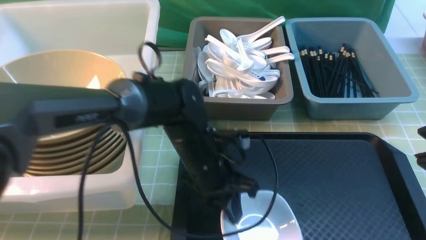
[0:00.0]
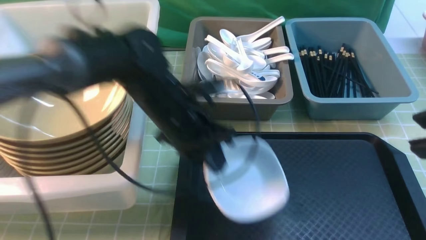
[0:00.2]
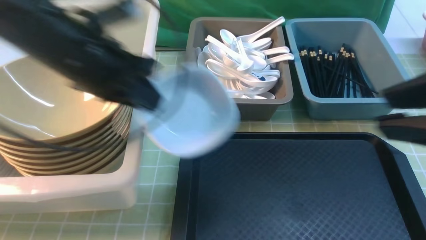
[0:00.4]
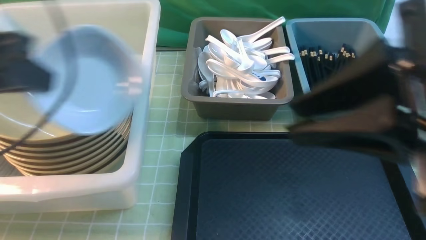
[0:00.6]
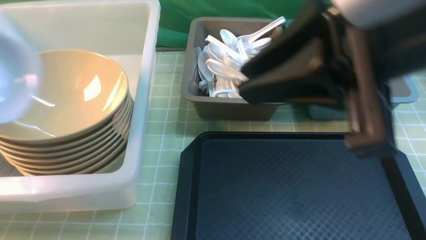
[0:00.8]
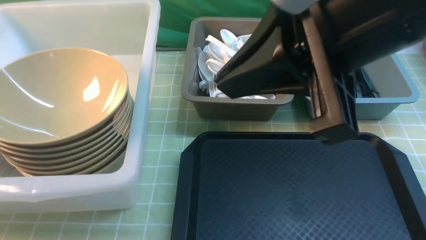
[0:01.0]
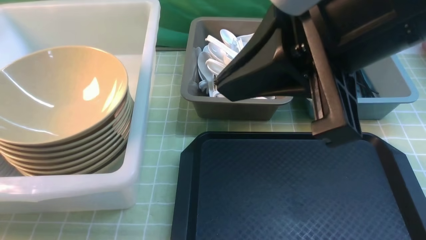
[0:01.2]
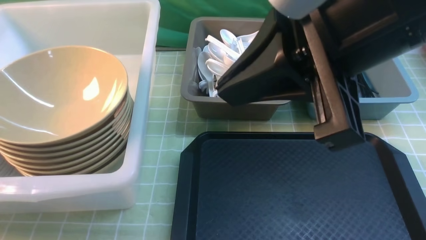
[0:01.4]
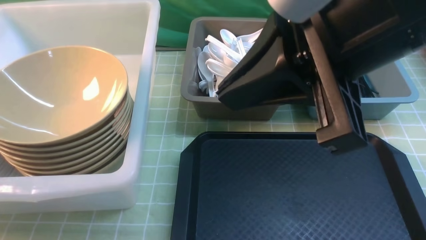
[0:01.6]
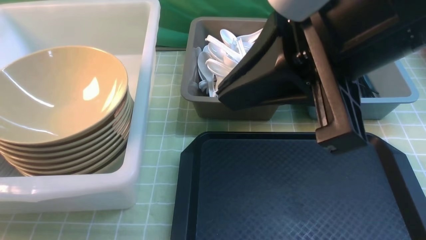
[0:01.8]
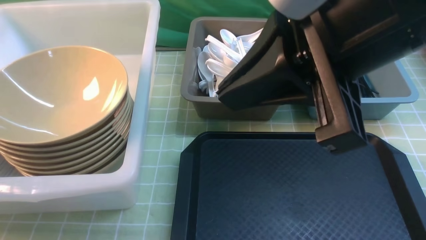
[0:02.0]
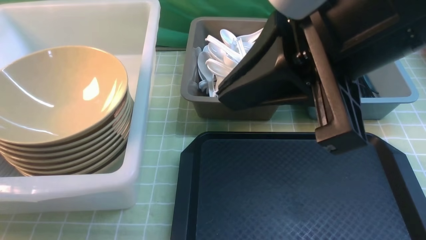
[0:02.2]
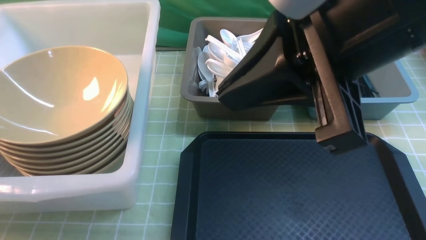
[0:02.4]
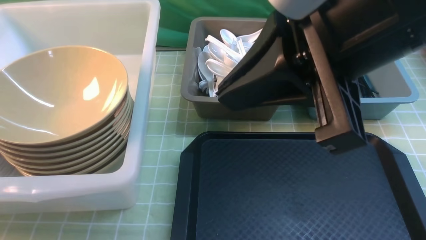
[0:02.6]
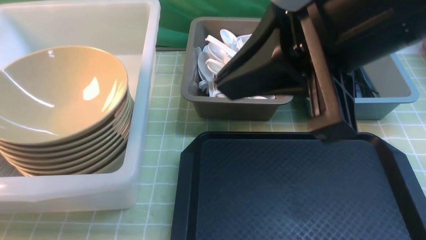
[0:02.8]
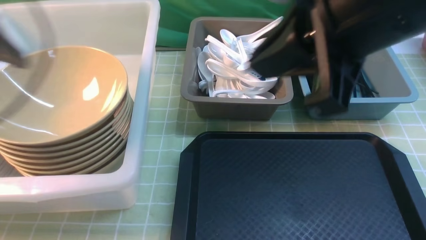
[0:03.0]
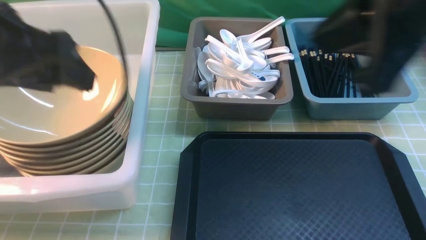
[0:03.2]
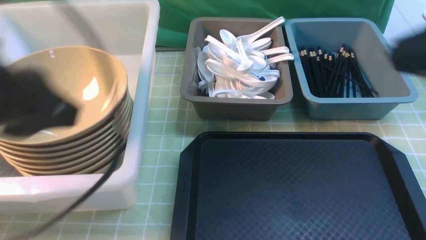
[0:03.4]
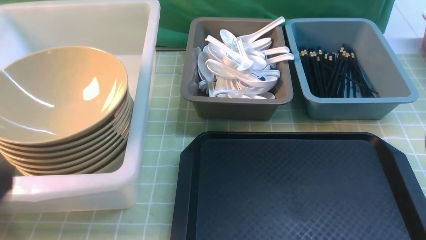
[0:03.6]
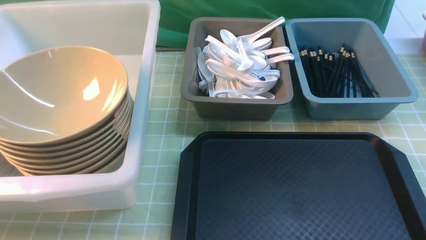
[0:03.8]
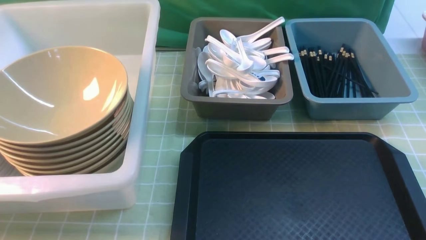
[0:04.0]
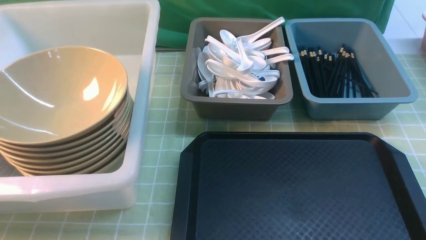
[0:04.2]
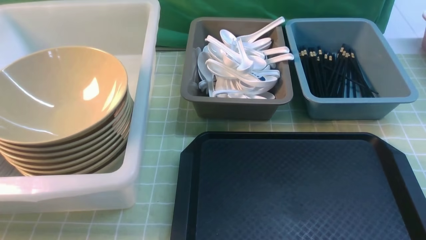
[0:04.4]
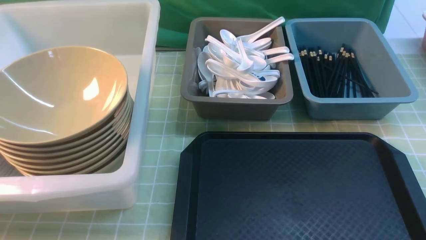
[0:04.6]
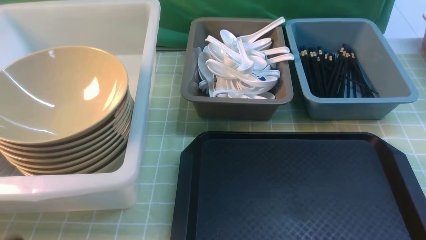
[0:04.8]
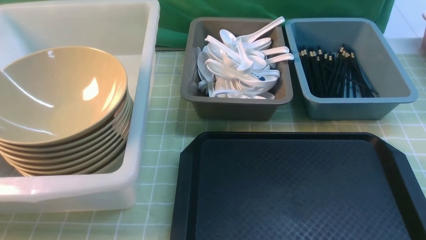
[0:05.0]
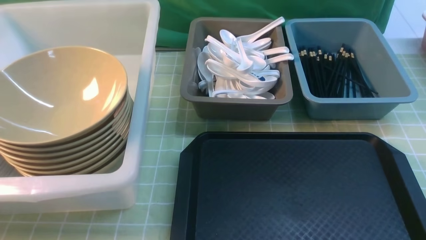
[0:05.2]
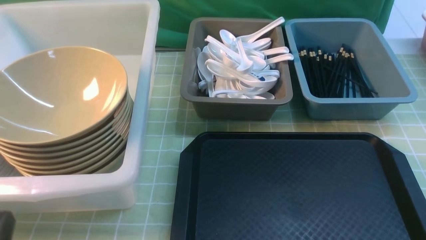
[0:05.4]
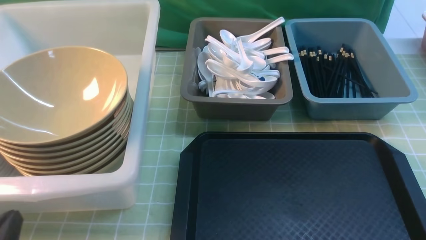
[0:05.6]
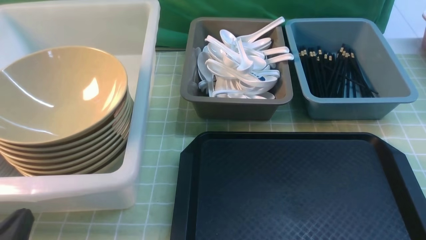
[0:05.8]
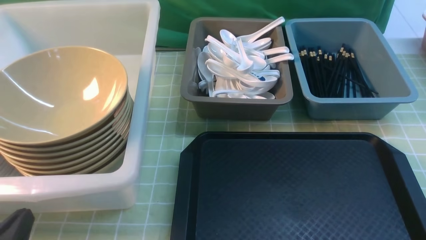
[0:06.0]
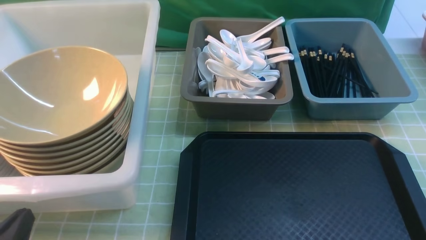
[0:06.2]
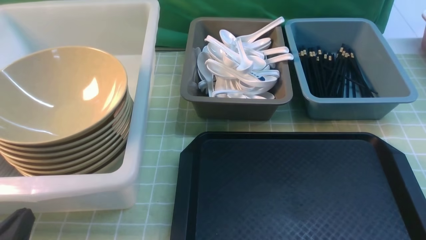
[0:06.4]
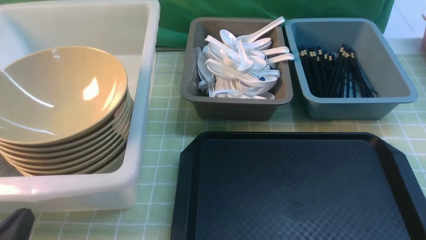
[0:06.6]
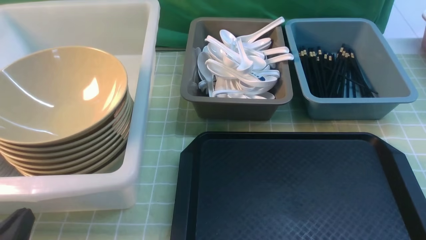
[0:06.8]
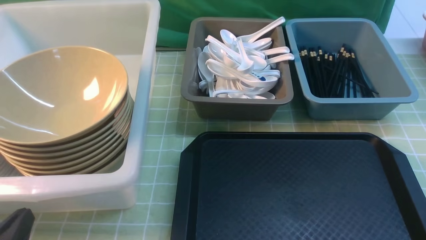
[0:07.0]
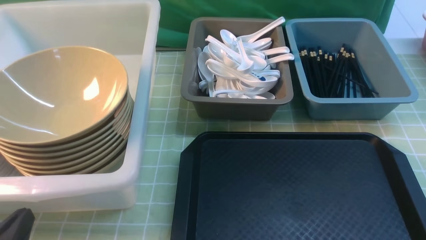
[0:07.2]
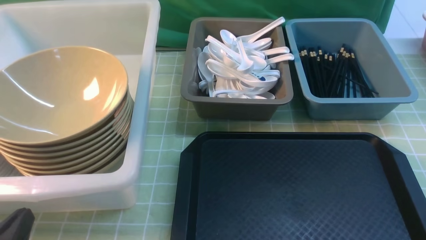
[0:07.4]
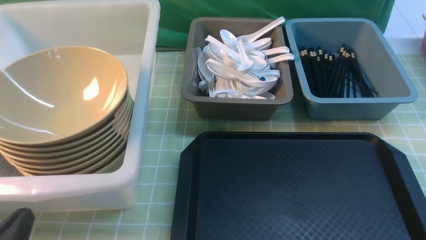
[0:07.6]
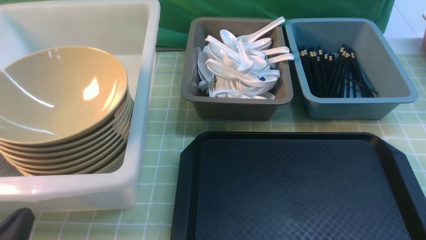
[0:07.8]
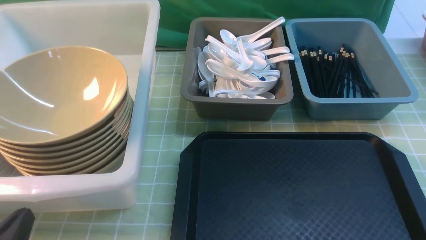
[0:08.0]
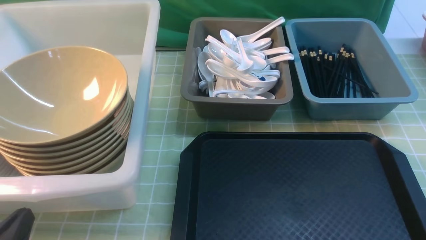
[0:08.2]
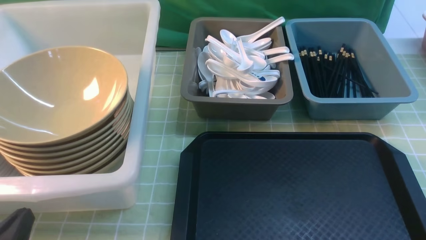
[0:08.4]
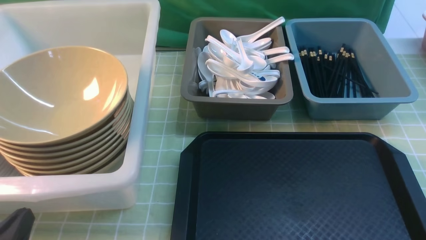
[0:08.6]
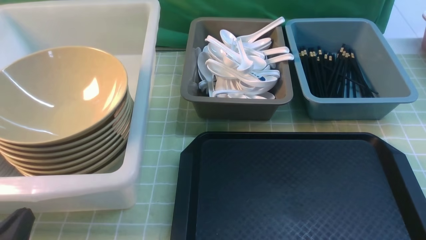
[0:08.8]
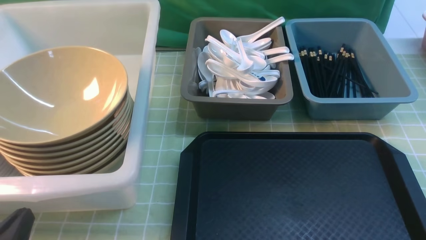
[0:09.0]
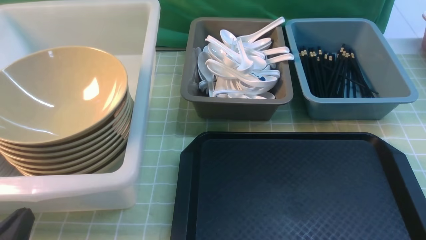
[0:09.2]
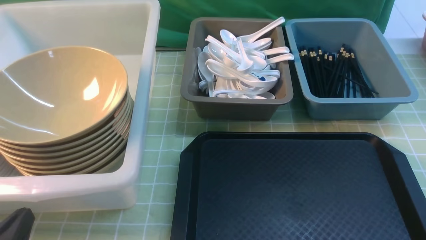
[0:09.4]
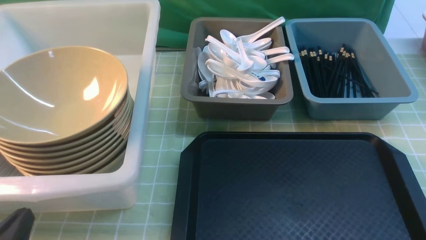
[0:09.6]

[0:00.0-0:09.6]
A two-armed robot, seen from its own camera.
Task of the whole recording: on green table put chopsticks spoon bowls plates into blue grey white boxes.
Step, 0:00.4 to 0:02.2: use the left arm to put the plate into the large storage box on the left.
0:00.0 to 0:01.6: The right gripper shifts some 15 cm to the left and forward, and closes up. Meanwhile the left gripper is displaced to the left by approximately 35 cm.
0:01.6 to 0:03.2: The left gripper moves to the right and upward, roughly 20 cm, and opens, while the right gripper heads to the right, covering approximately 5 cm.
0:03.2 to 0:04.8: The left gripper goes roughly 25 cm backward and downward, and closes up; the right gripper heads downward, backward and to the right, covering approximately 25 cm.
0:04.8 to 0:06.4: The left gripper heads downward, covering some 10 cm.
0:08.0 to 0:09.6: Both grippers stay put.

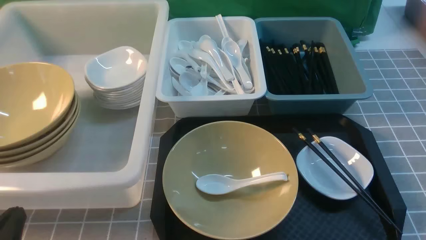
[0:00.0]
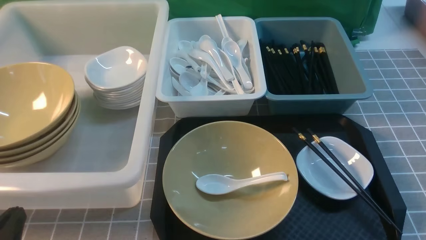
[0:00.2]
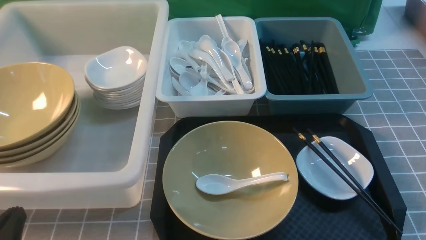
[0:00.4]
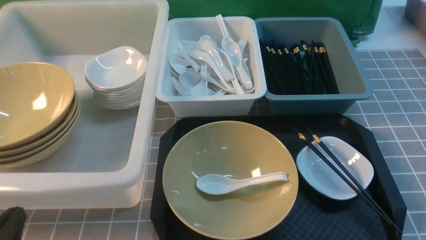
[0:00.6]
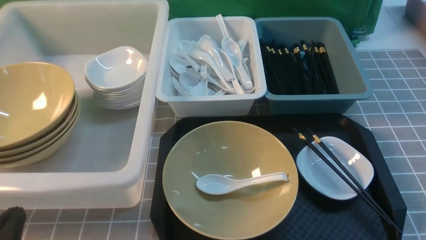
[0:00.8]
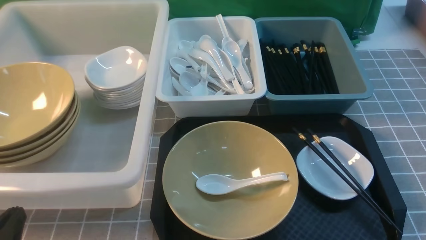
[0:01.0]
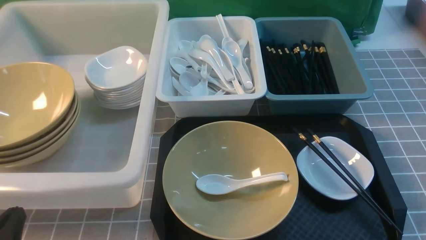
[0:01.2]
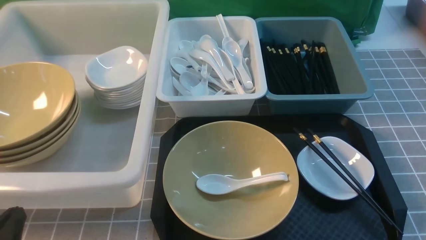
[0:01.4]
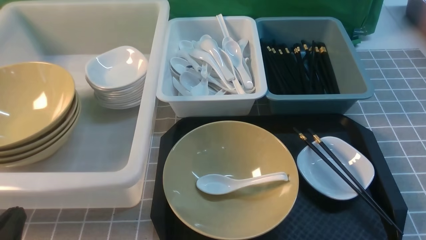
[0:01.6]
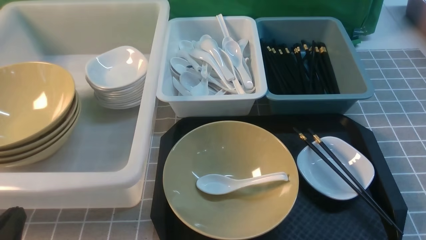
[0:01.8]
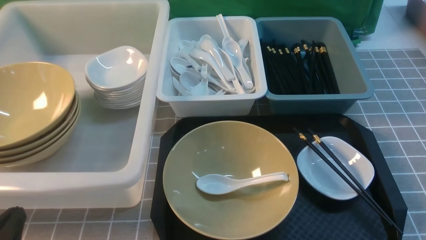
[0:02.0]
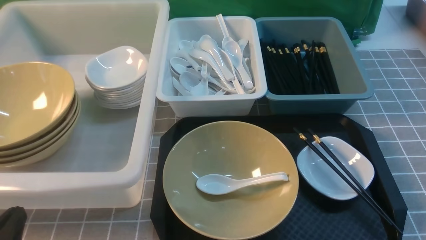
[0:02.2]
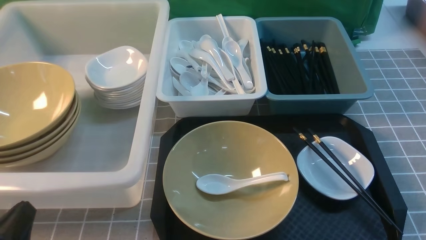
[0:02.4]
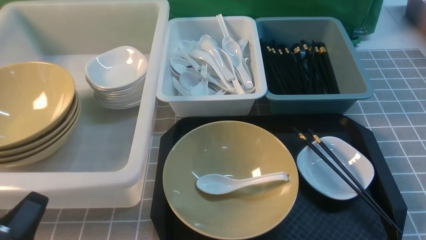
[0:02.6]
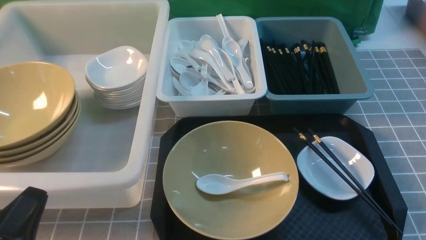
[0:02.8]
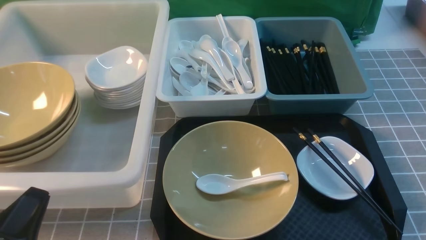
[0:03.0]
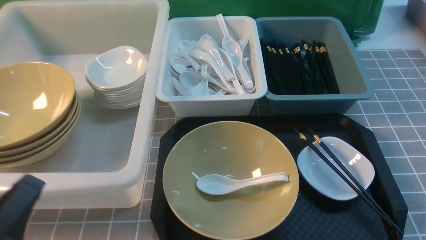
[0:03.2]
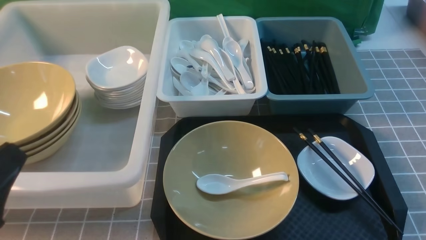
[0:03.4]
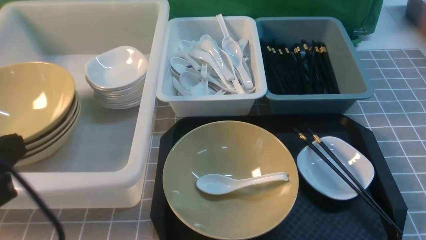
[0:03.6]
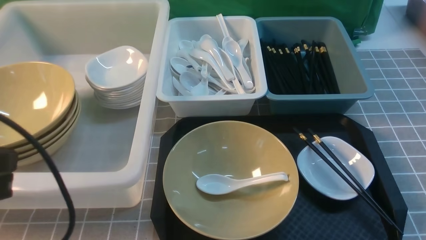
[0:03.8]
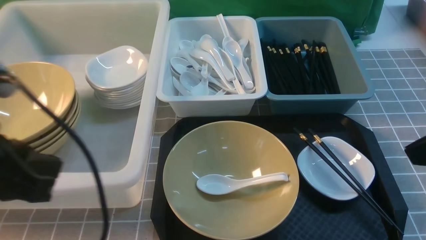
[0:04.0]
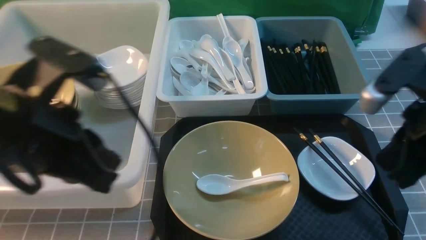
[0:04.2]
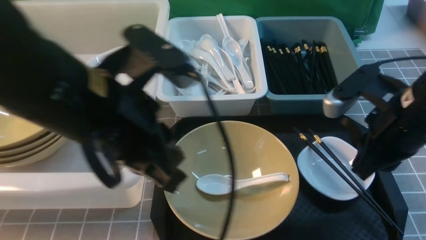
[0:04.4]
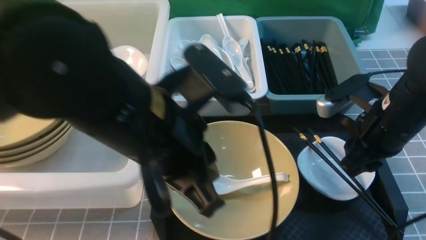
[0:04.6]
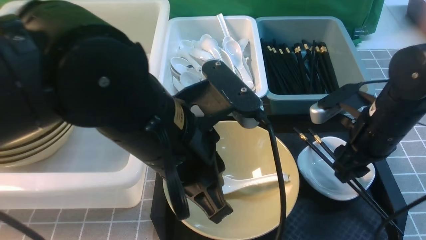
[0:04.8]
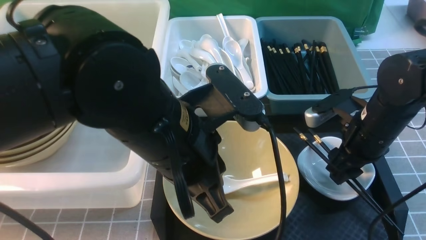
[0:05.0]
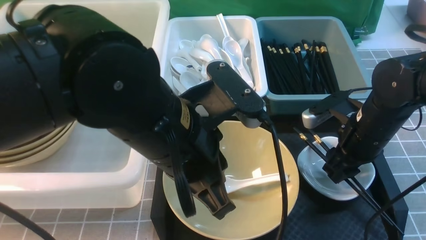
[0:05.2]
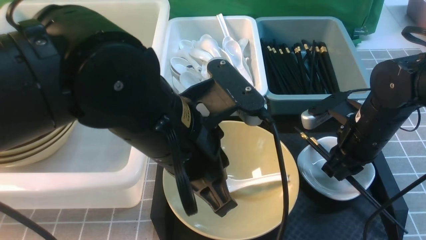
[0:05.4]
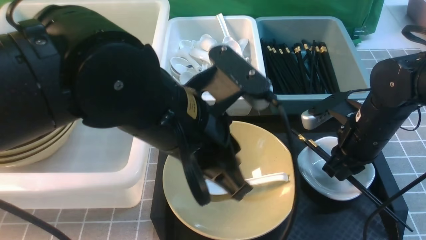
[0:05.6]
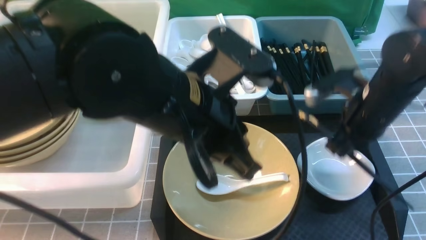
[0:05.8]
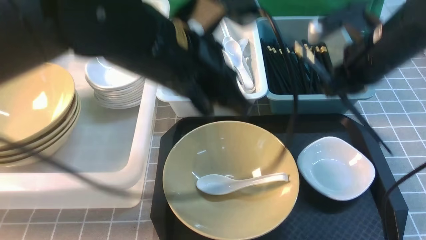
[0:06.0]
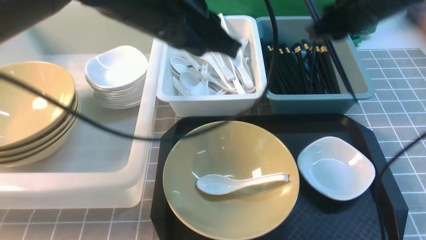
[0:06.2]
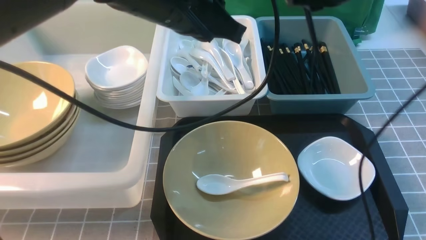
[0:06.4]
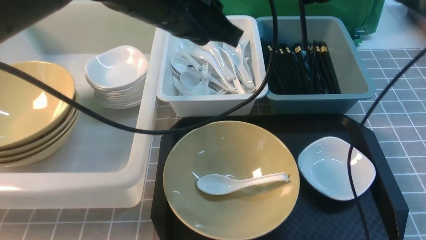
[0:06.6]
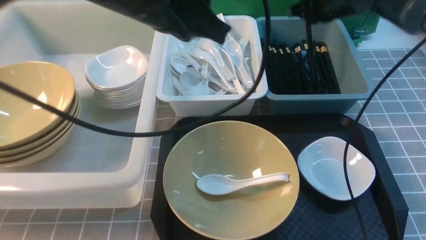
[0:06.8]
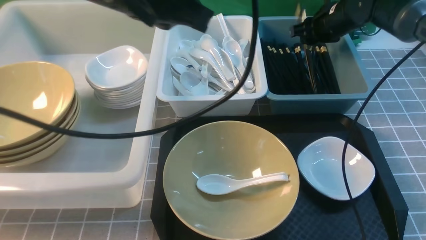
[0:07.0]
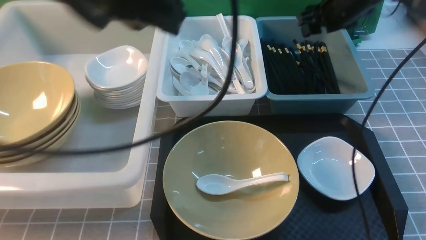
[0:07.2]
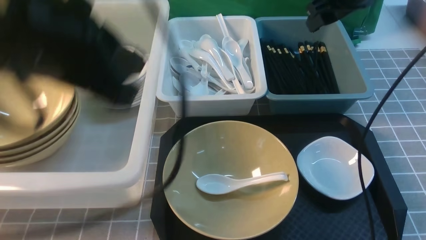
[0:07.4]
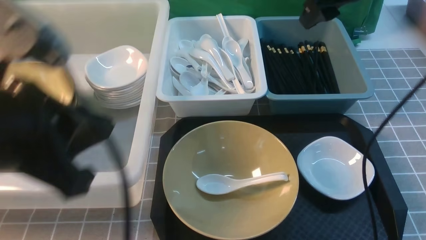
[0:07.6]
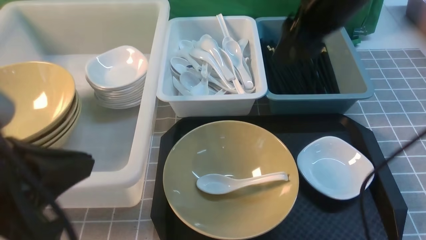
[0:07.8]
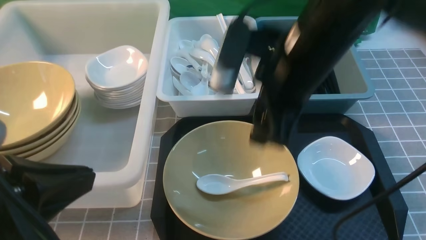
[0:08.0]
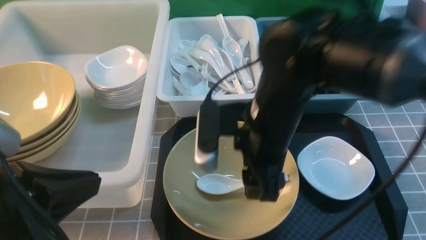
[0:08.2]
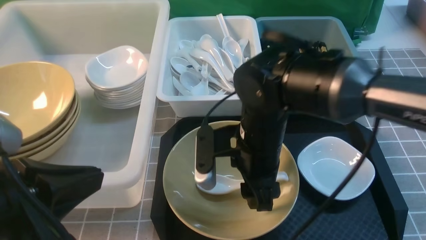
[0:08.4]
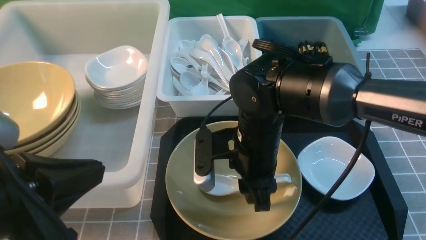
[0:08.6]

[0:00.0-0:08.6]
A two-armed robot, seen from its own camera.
Task of the whole recording: on grey table put chopsticks spoon bowls plates into blue grey white boxes.
Step, 0:00.0 to 0:05.6: use the right arm to grab the chopsticks.
Step, 0:05.8 to 0:07.2: use the right arm to put the chopsticks into the small storage box on the right.
0:00.0 to 0:01.4: Neither gripper changes place.
0:02.8 to 0:04.4: The right gripper shifts some 25 cm forward, upward and to the left. Meanwhile the left gripper is displaced upward, to the right and forward by roughly 25 cm.
0:04.4 to 0:05.8: The left gripper shifts approximately 5 cm to the right; the right gripper goes roughly 10 cm forward, travels downward and back again, approximately 10 cm each way, and opens and closes again.
0:05.8 to 0:07.2: The right gripper goes approximately 15 cm forward, and opens its fingers, while the left gripper goes about 10 cm upward and to the left, and travels forward and back again, approximately 10 cm each way.
0:07.2 to 0:08.6: The right gripper goes roughly 30 cm backward, to the left and downward, and closes its fingers, while the left gripper goes about 15 cm backward, downward and to the left.
